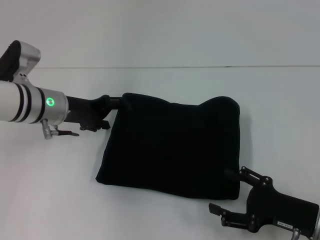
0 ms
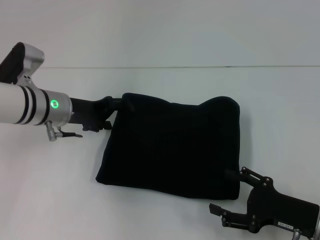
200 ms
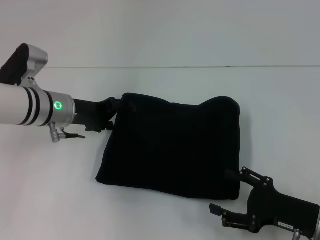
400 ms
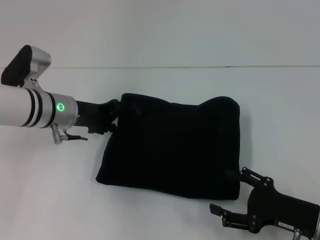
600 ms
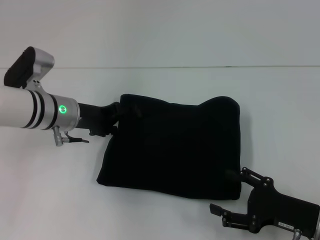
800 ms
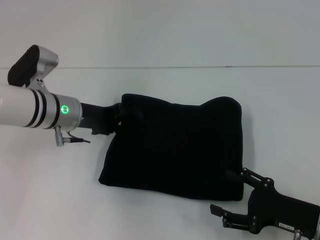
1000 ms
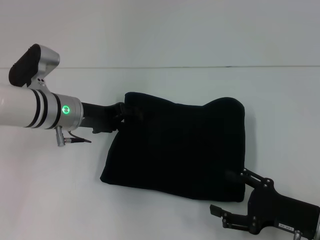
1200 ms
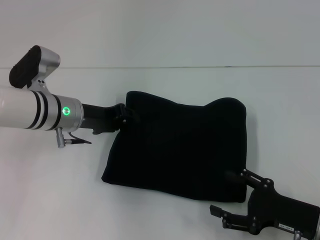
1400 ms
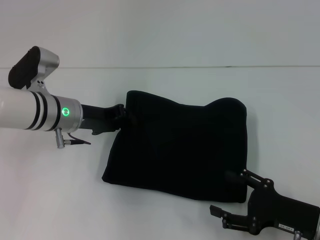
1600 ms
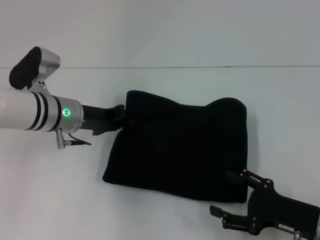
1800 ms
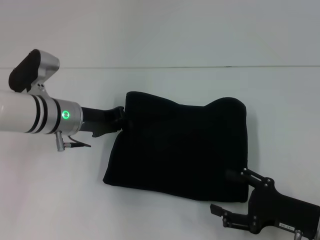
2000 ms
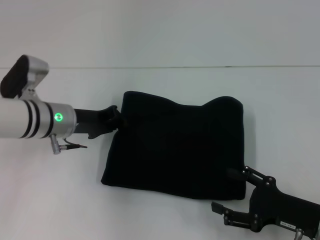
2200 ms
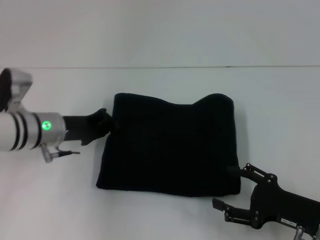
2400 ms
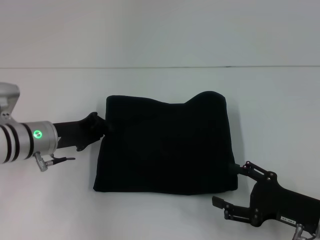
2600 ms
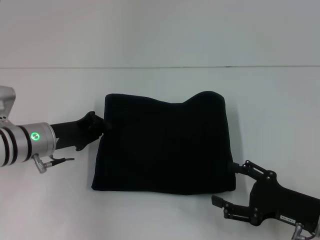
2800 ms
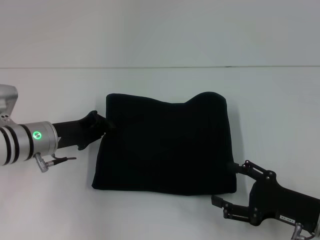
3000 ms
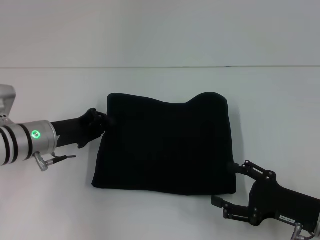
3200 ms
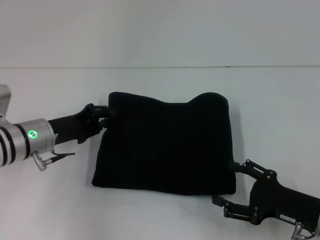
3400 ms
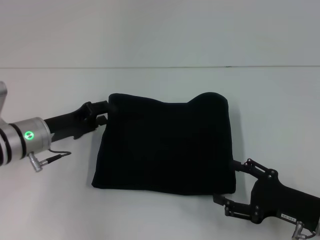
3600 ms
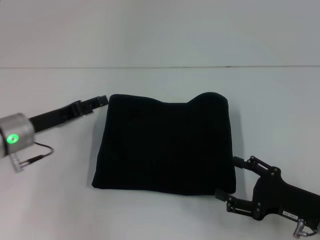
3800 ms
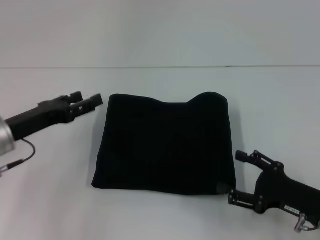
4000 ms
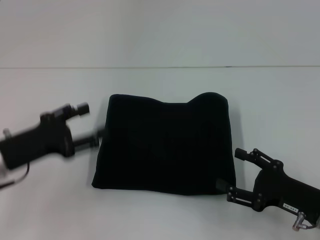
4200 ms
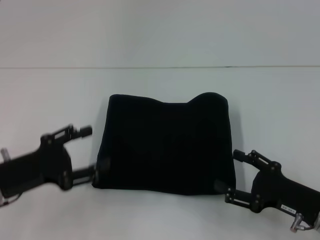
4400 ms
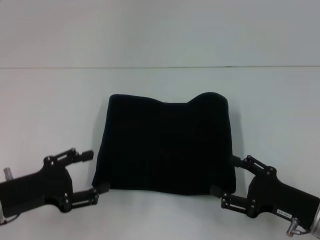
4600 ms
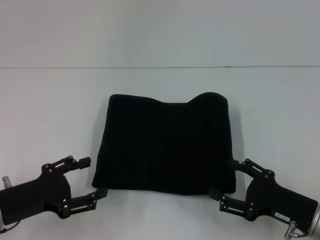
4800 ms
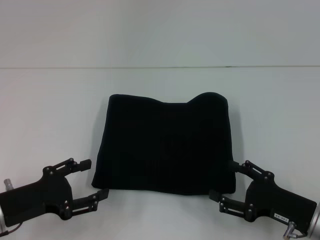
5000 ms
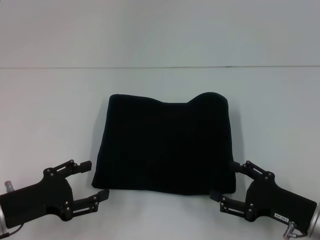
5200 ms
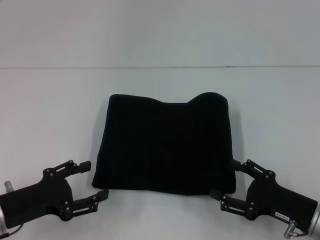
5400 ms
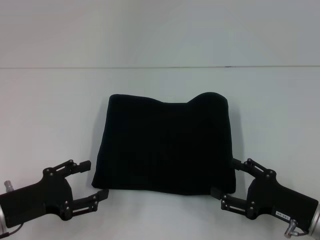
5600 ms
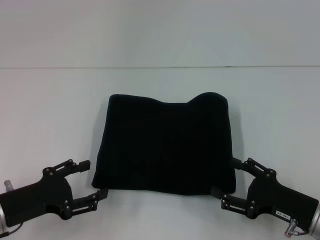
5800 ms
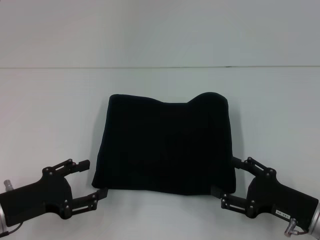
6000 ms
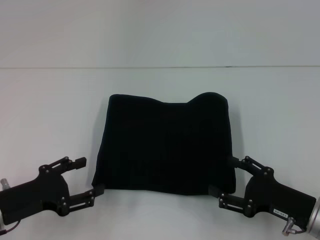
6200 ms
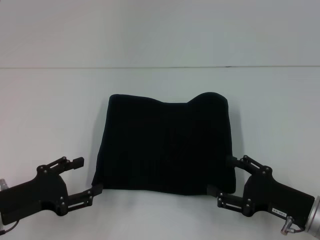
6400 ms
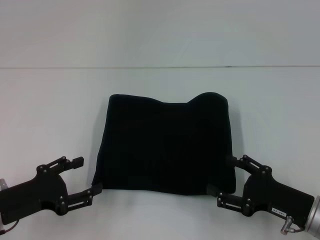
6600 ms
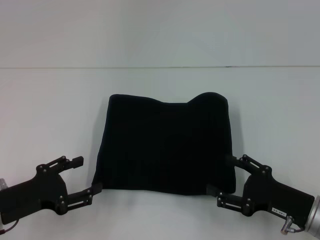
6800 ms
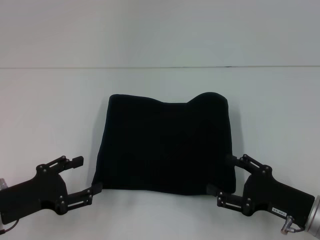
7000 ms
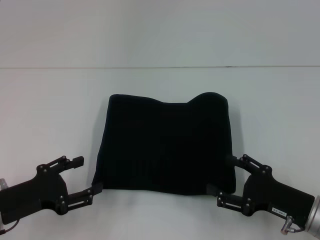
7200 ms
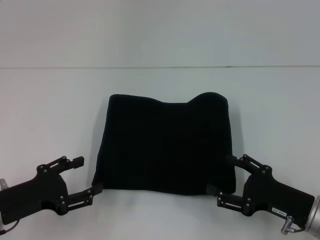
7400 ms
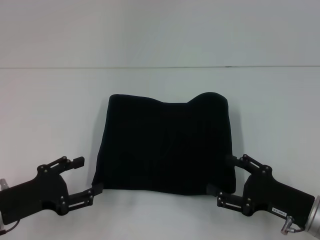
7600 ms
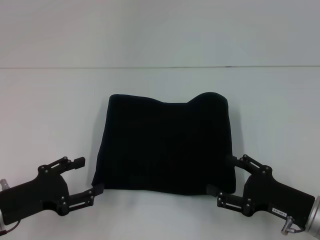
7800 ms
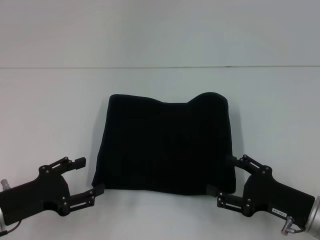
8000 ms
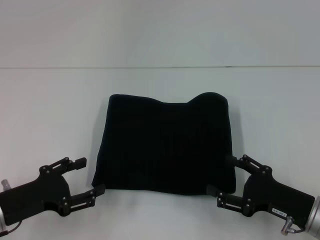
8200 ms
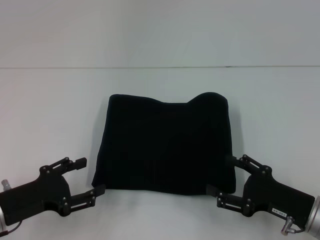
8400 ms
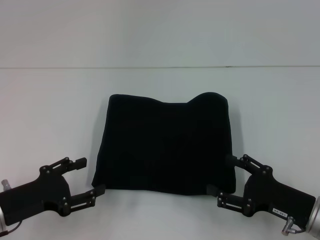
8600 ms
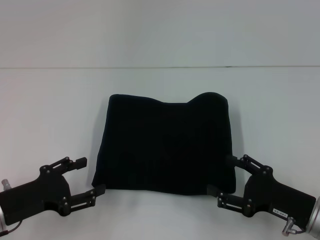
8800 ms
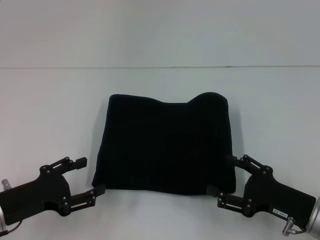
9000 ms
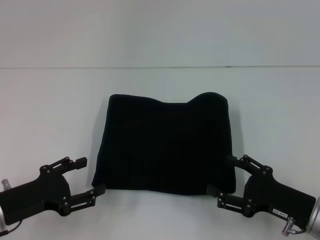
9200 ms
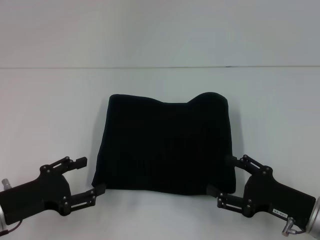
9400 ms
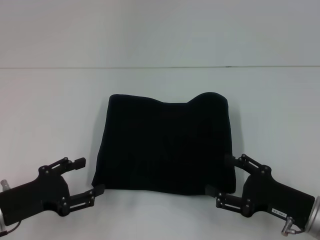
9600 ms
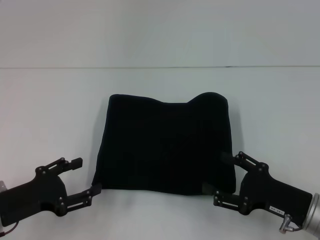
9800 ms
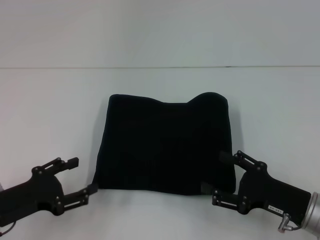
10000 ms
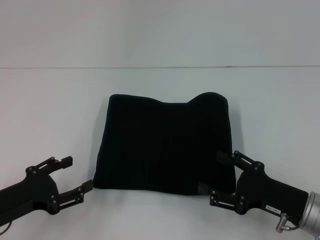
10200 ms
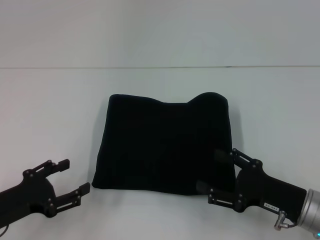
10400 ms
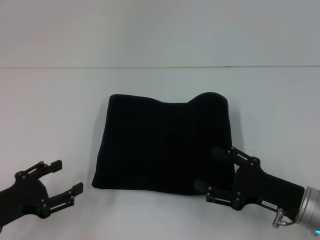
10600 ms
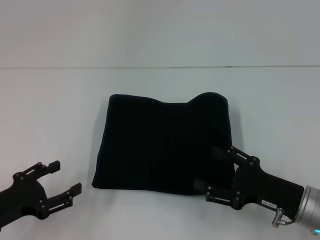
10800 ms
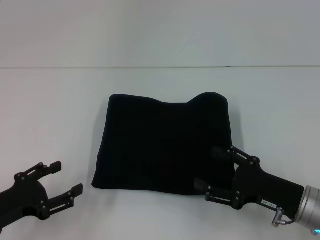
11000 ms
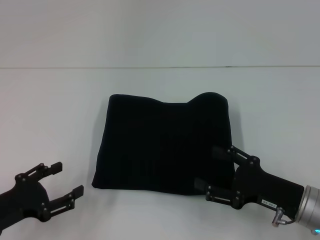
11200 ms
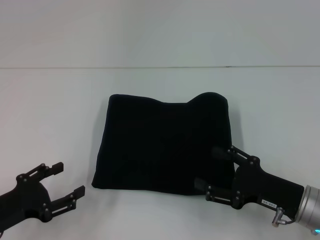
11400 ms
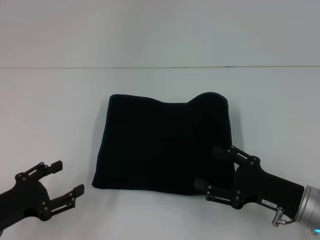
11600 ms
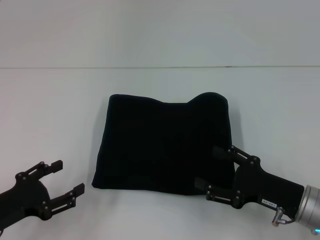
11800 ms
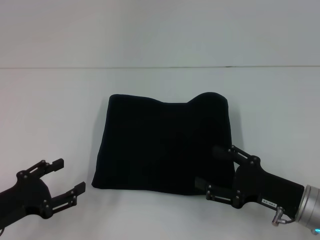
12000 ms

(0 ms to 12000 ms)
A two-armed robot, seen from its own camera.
0 ms - 1600 ms: The left gripper closes its fingers.
1600 ms - 3000 ms: The left gripper moves some 5 cm.
3000 ms - 4400 ms: The left gripper is displaced backward by roughly 10 cm, and opens its fingers.
4400 ms - 6000 ms: The grippers make only small movements.
6000 ms - 9000 ms: The two grippers keep their place.
9000 ms - 10400 ms: The grippers stay close to where they were, moving slightly.
10400 ms - 12000 ms: Neither gripper changes place.

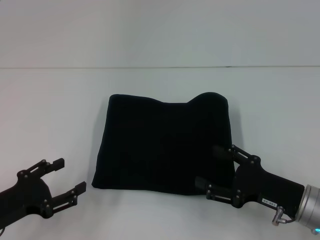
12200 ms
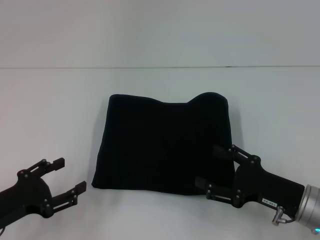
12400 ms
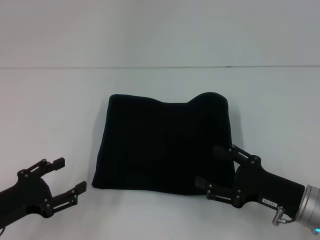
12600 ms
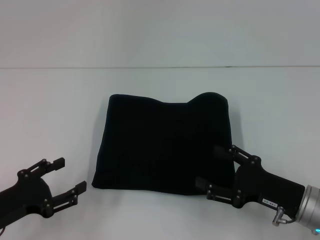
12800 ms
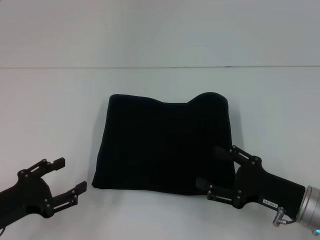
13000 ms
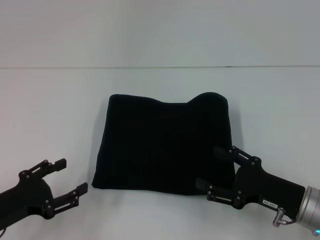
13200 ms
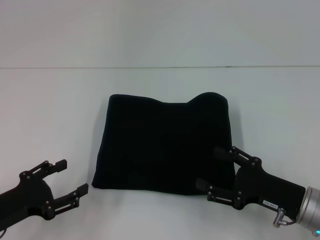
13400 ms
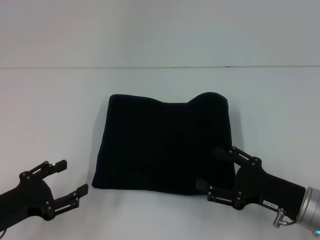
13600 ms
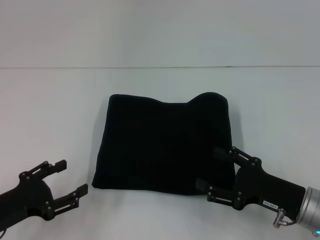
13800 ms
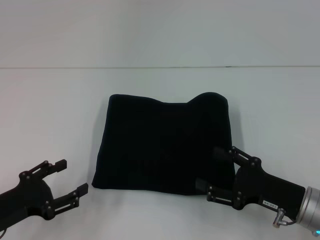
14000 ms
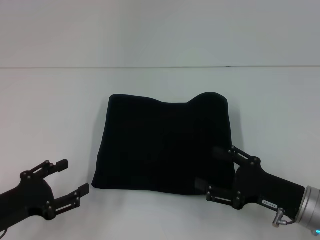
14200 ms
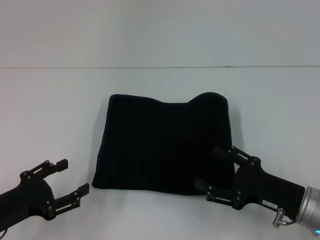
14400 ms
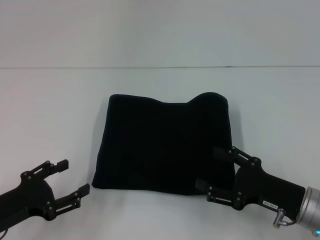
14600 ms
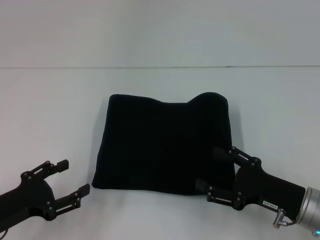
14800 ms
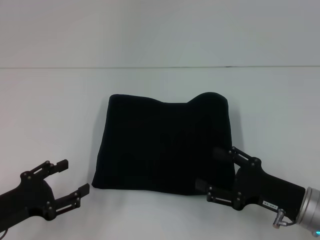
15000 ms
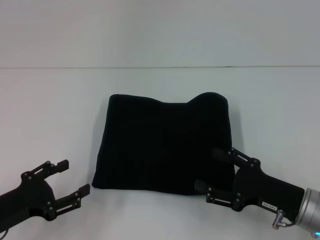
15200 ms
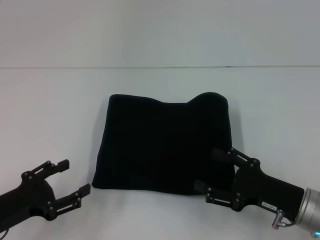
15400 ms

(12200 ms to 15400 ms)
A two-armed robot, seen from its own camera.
12200 ms - 15400 ms: The two grippers keep their place.

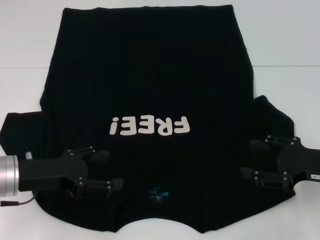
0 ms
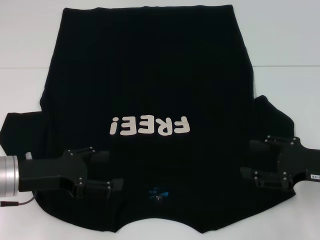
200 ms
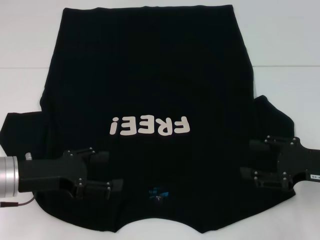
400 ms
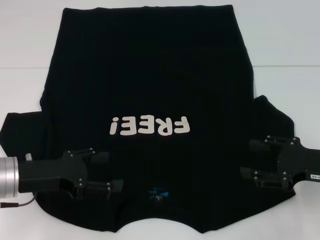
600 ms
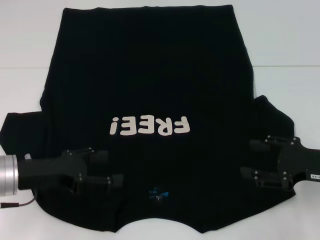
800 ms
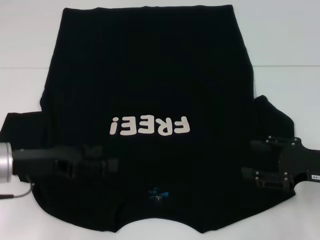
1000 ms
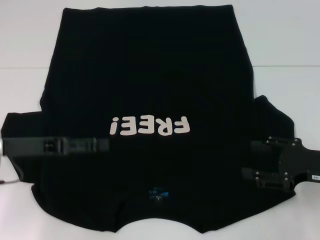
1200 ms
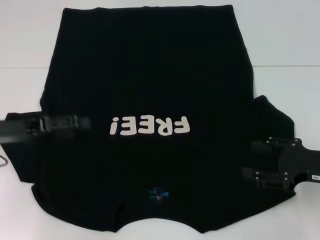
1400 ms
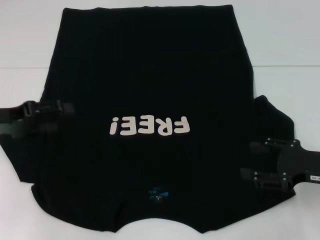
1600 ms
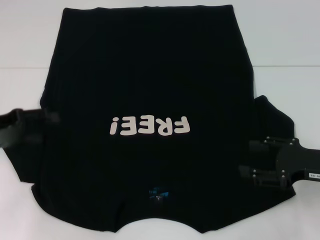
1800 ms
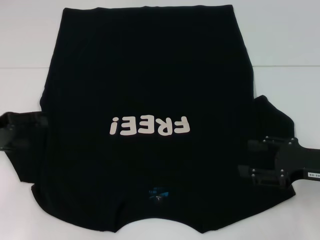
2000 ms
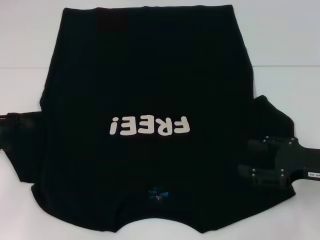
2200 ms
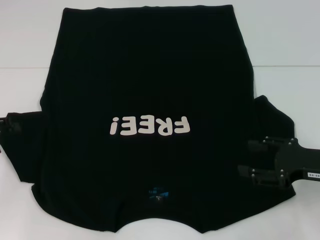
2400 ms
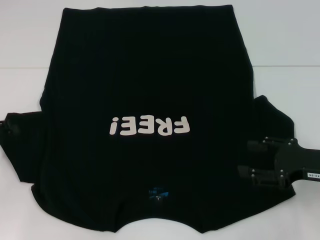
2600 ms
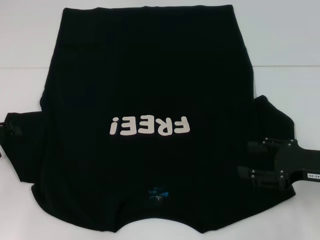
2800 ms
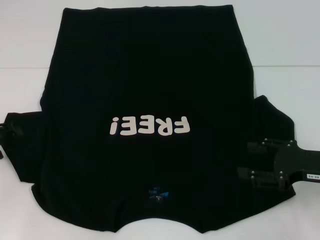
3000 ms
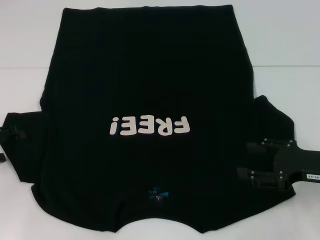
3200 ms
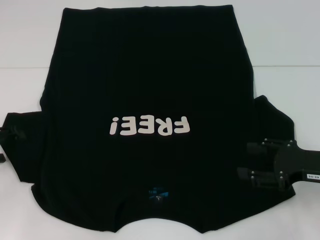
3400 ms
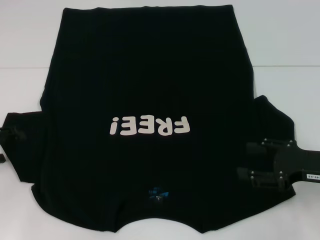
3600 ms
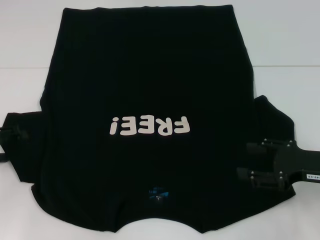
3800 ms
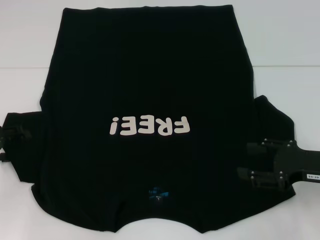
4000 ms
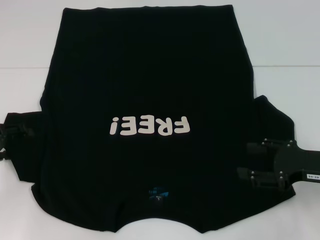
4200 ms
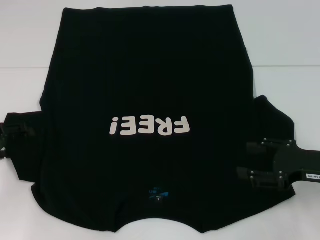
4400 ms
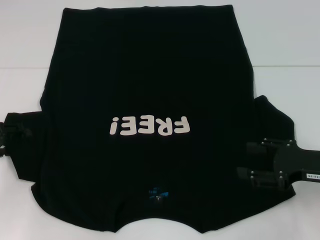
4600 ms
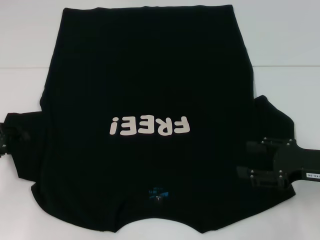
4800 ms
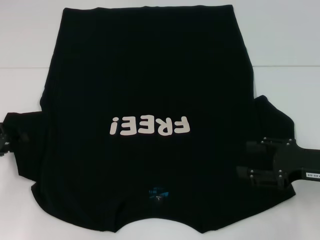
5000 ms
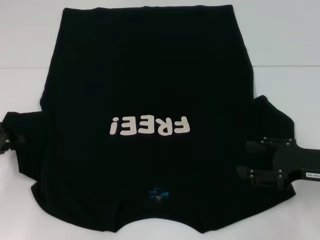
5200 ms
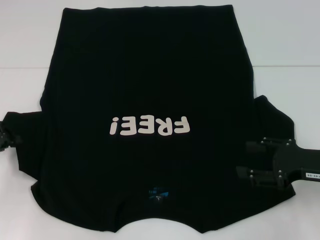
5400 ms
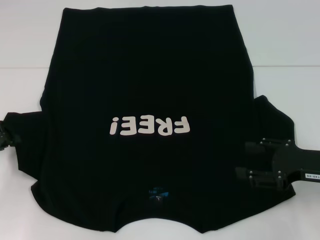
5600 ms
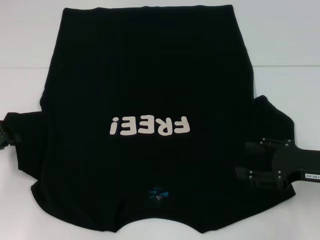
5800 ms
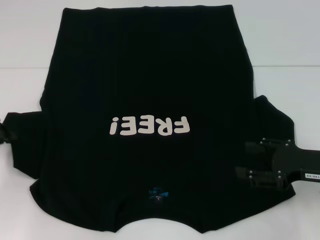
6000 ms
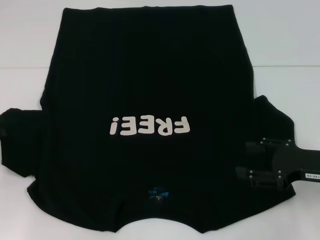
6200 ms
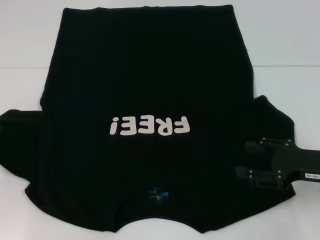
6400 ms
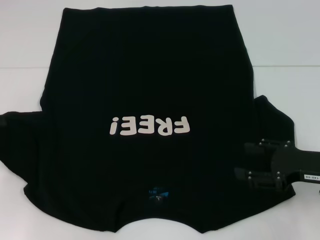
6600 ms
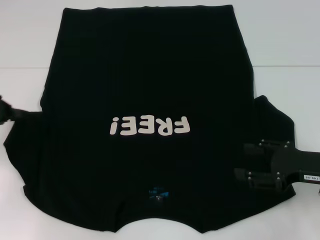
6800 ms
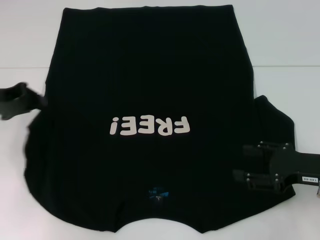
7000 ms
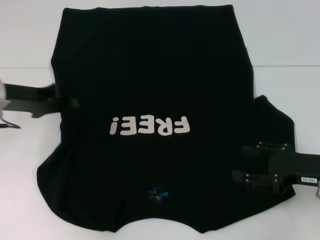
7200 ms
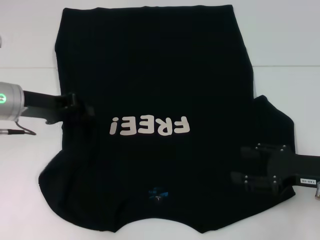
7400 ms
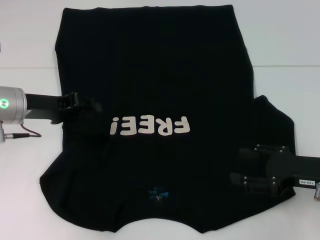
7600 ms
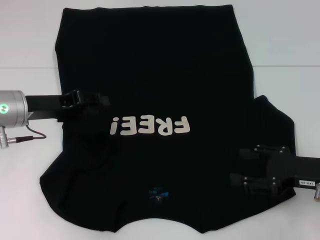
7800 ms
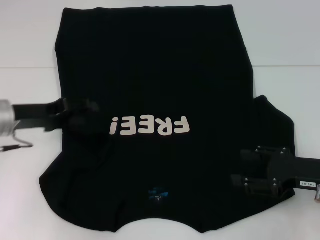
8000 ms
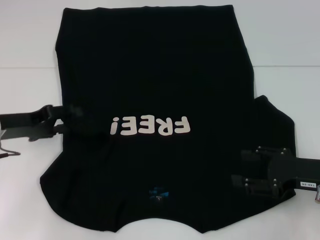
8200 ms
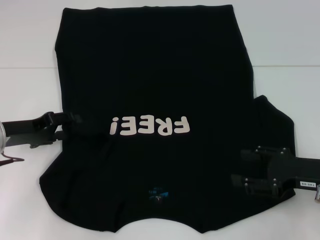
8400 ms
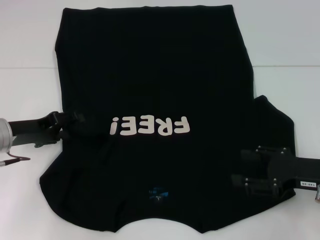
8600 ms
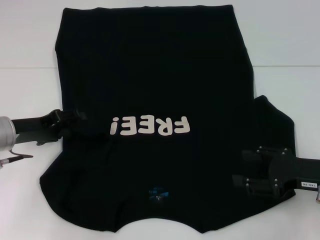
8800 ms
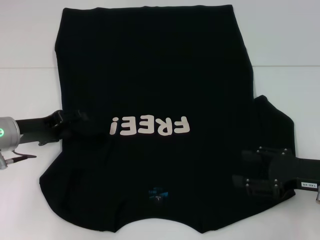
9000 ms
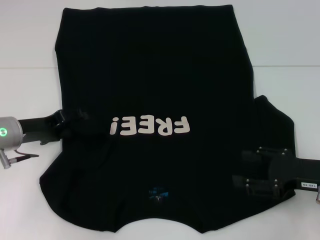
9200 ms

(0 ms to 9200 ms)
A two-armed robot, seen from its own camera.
0 ms - 1600 ms: The left gripper heads to the left and upward, covering some 10 cm.
1600 ms - 3000 ms: The left gripper shifts about 5 cm to the left.
4600 ms - 6200 ms: The left gripper closes up.
6200 ms - 7600 ms: The left gripper goes roughly 10 cm to the right.
7600 ms - 9200 ms: The left gripper is displaced downward by approximately 5 cm, and opens.
